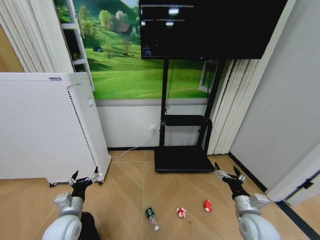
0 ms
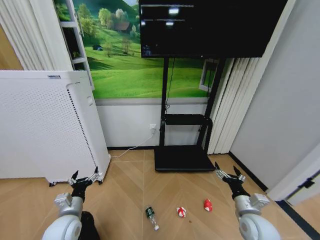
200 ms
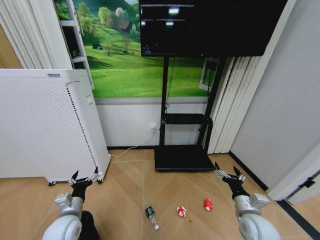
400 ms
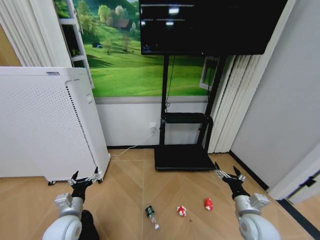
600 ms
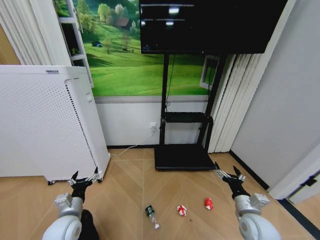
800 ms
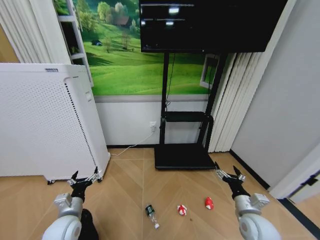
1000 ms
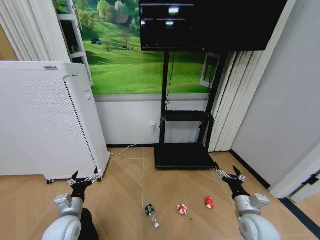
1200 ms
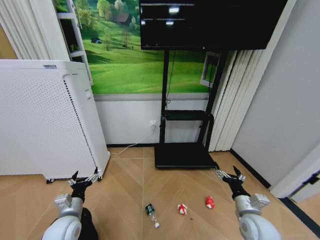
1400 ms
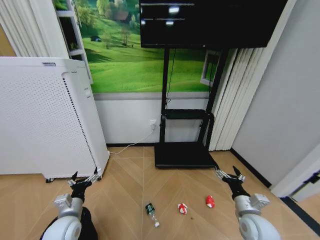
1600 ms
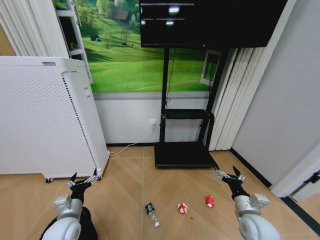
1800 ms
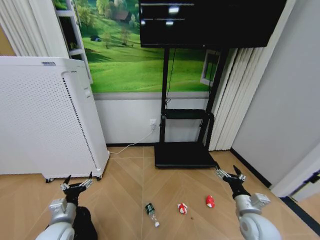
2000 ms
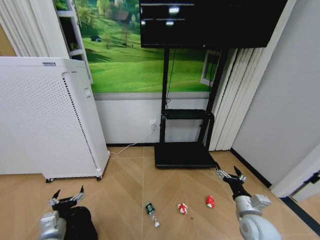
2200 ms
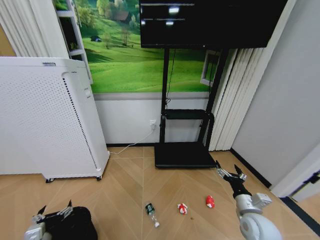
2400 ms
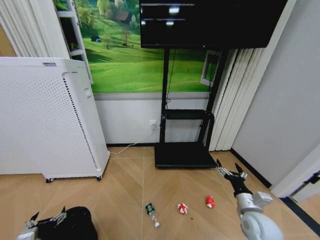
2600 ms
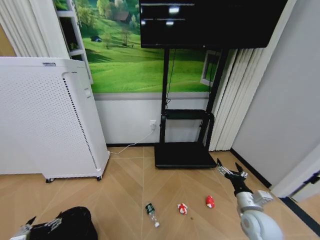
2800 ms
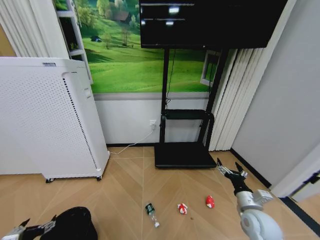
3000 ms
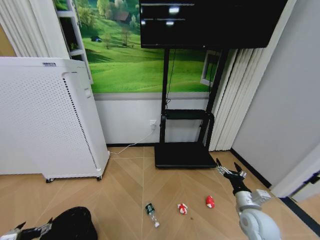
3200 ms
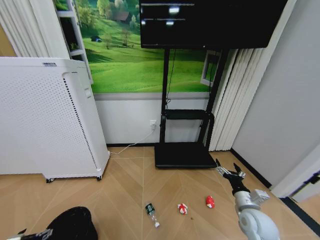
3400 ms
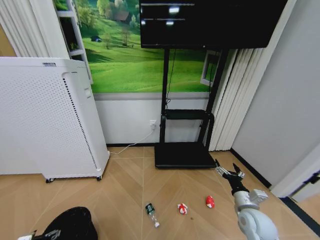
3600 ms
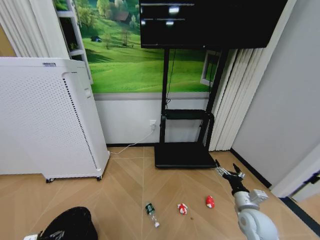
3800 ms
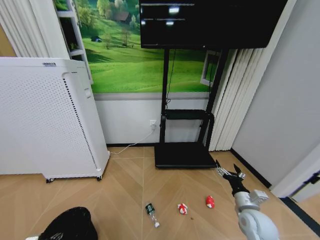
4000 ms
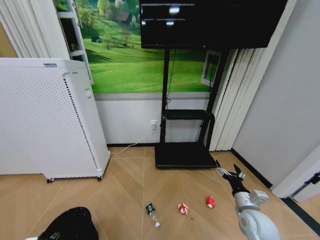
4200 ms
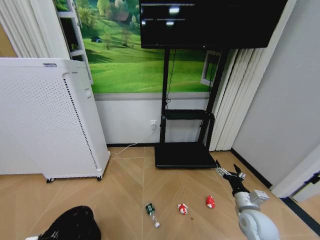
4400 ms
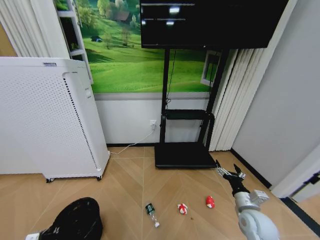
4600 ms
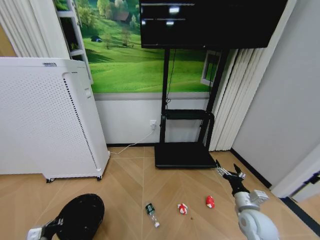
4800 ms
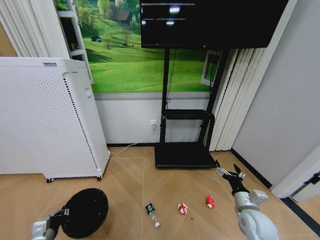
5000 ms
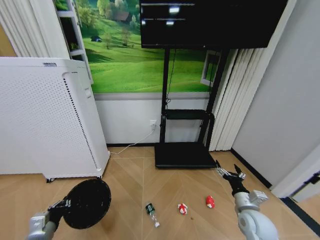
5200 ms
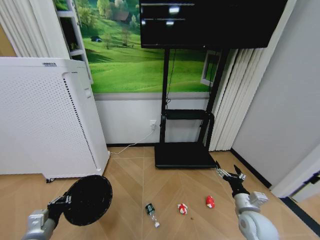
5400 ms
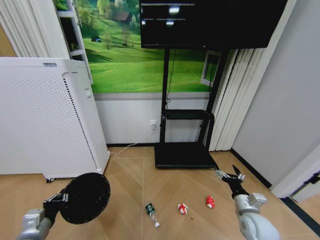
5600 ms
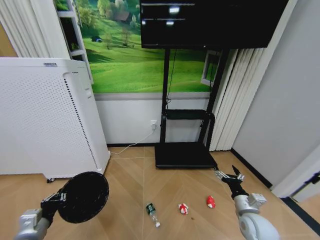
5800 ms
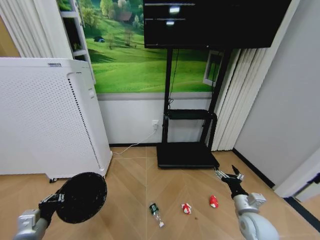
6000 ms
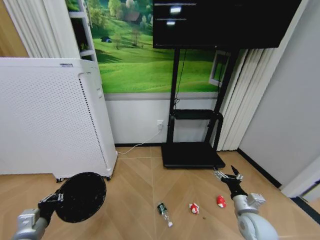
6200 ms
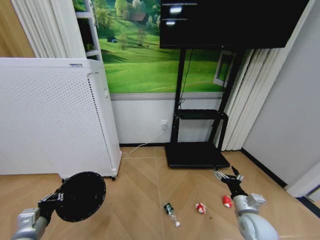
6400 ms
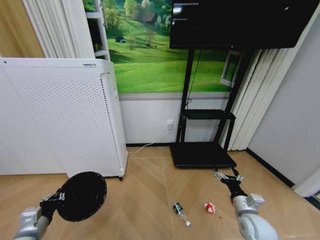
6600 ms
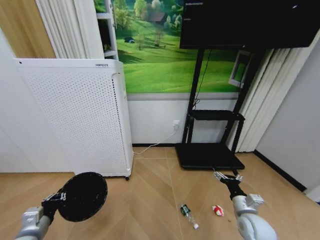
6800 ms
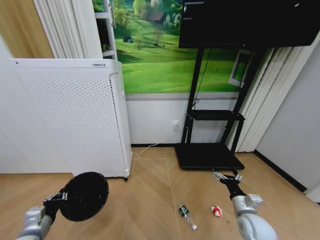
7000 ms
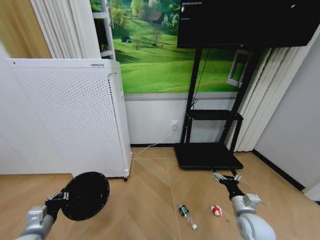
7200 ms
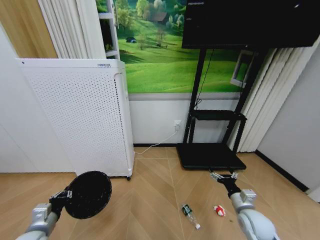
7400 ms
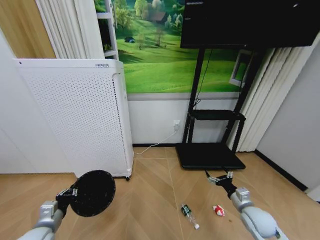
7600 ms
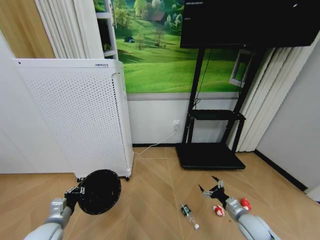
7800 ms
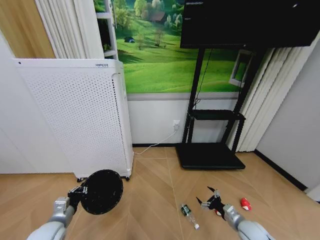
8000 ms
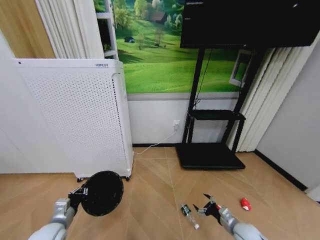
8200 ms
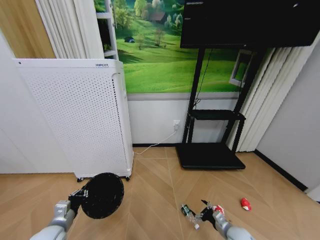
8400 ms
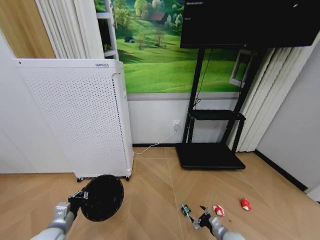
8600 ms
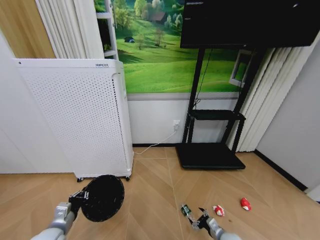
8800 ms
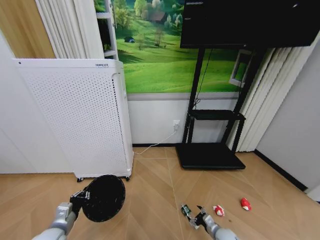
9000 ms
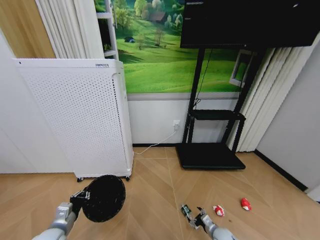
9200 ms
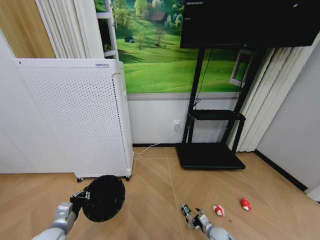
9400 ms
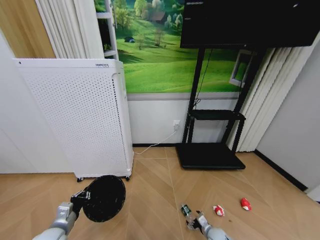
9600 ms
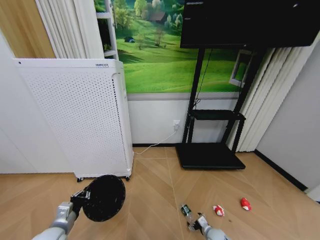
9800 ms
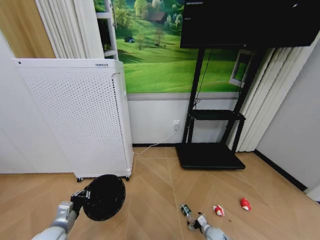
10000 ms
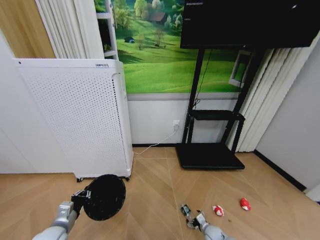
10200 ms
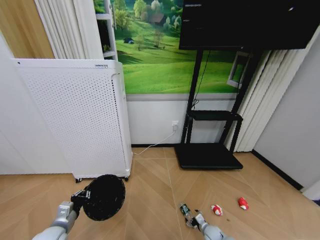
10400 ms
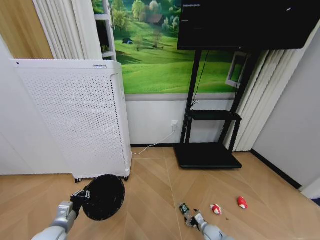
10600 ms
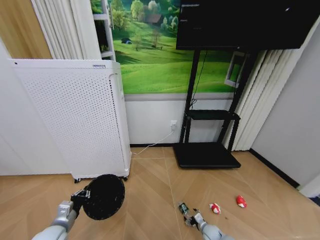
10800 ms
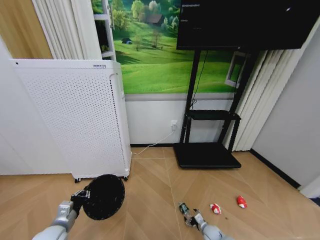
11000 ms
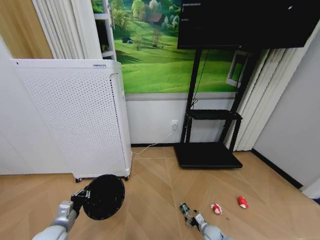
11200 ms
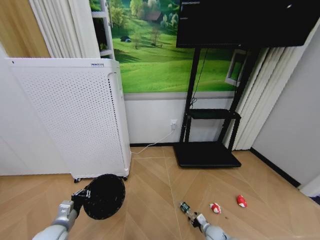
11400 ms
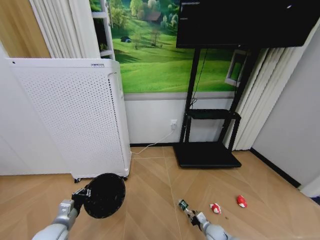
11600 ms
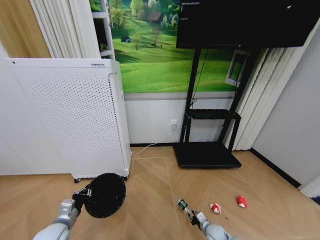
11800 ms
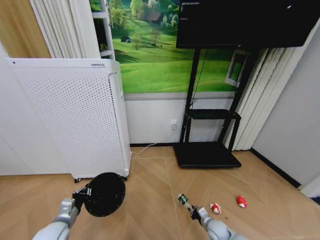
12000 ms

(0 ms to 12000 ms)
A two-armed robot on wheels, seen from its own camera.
Task of the whole recording: Pick up the trash bin and place the garbage on the floor into it.
0 ms - 1600 ms: Both grippers stay about where they are.
1600 ms - 3000 ms: The left gripper travels to the left and backward by roughly 20 cm.
3000 ms - 4400 ms: The left gripper travels downward by roughly 10 cm, and closes up.
4400 ms - 6000 ms: The left gripper is displaced upward and to the right by roughly 15 cm.
7600 ms - 9000 ms: The right gripper goes about 20 cm downward.
9000 ms - 10400 ms: The right gripper heads downward, covering some 5 cm.
10400 ms - 12000 ms: The right gripper shifts approximately 10 cm upward, and closes.

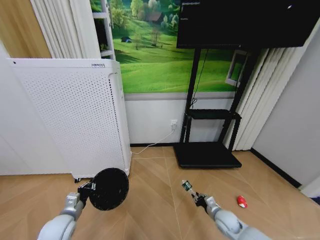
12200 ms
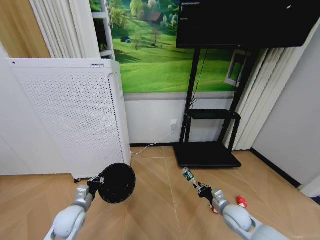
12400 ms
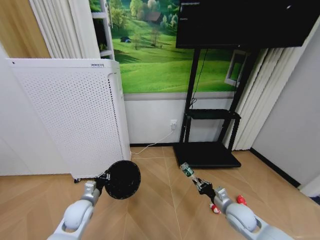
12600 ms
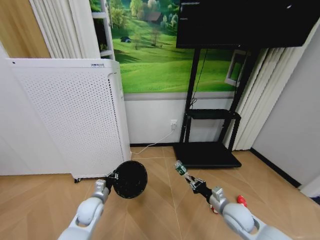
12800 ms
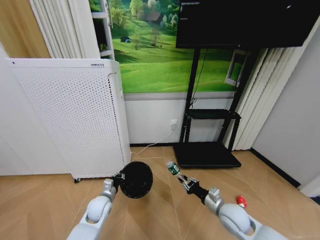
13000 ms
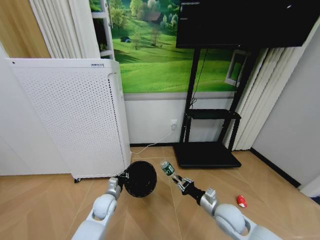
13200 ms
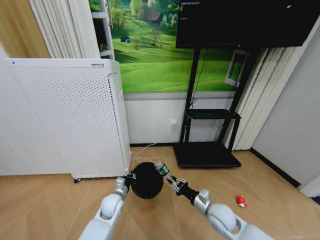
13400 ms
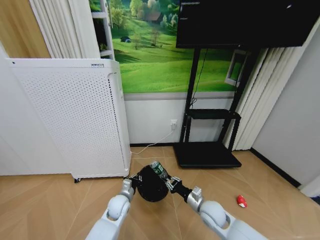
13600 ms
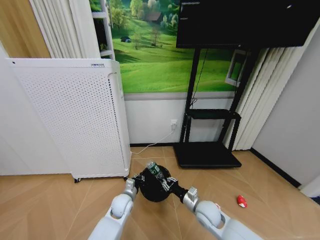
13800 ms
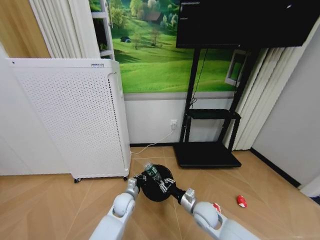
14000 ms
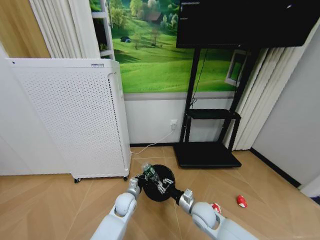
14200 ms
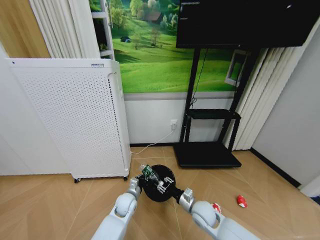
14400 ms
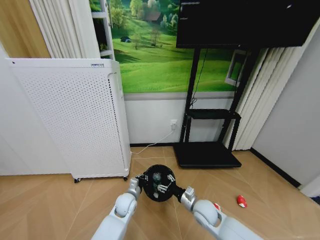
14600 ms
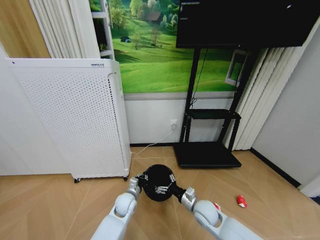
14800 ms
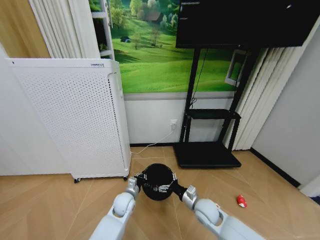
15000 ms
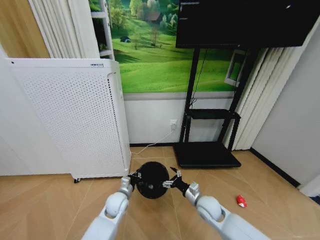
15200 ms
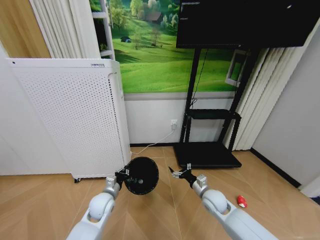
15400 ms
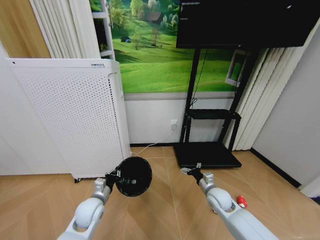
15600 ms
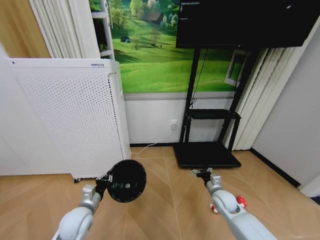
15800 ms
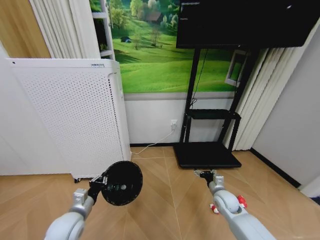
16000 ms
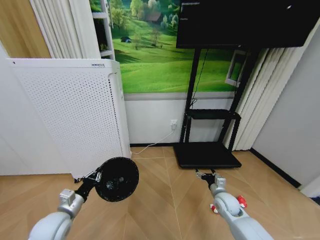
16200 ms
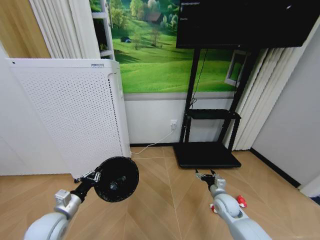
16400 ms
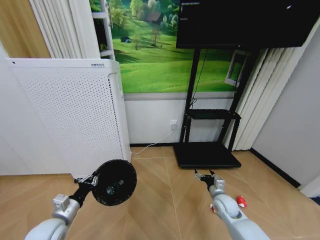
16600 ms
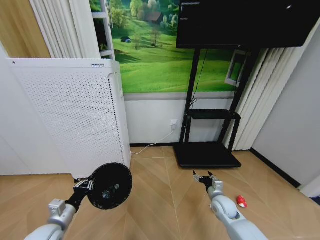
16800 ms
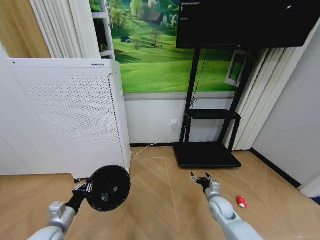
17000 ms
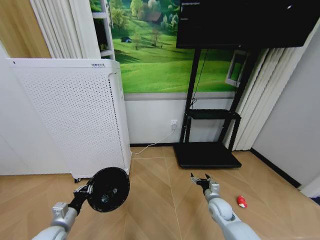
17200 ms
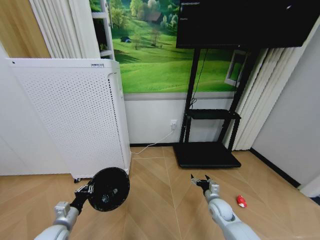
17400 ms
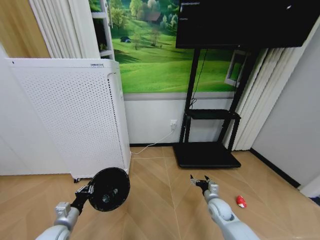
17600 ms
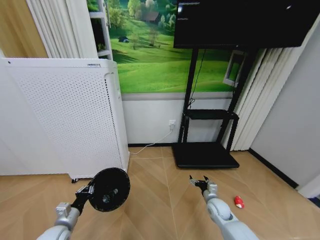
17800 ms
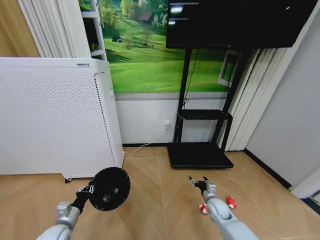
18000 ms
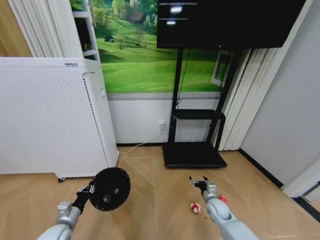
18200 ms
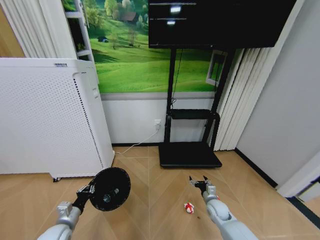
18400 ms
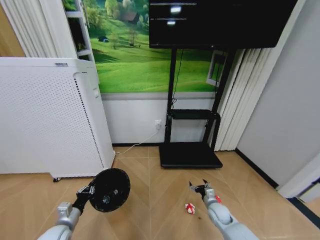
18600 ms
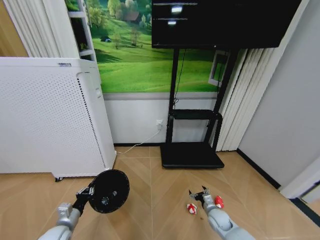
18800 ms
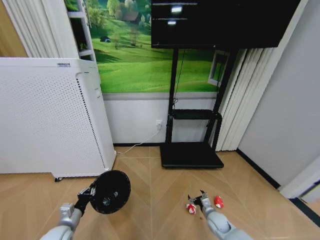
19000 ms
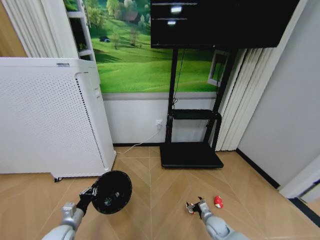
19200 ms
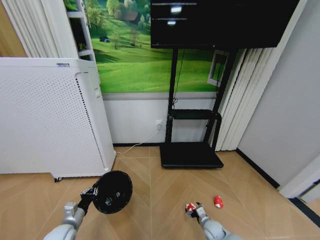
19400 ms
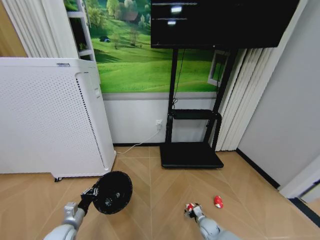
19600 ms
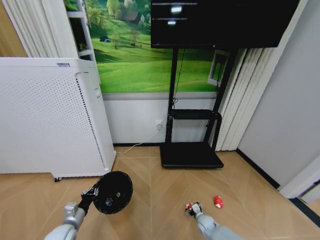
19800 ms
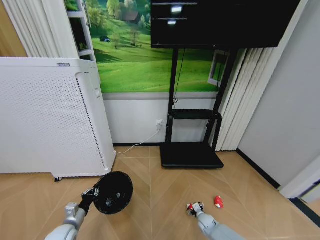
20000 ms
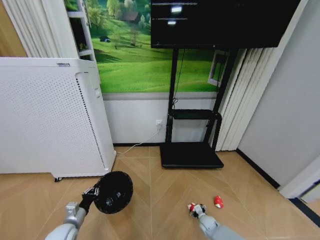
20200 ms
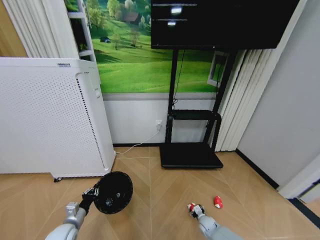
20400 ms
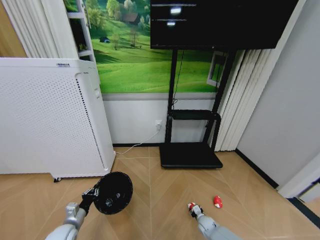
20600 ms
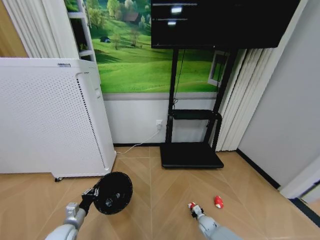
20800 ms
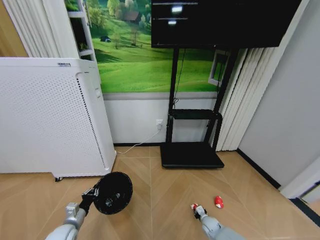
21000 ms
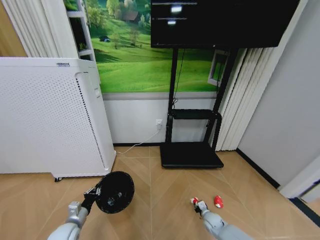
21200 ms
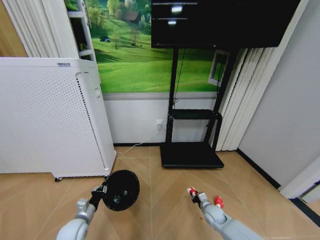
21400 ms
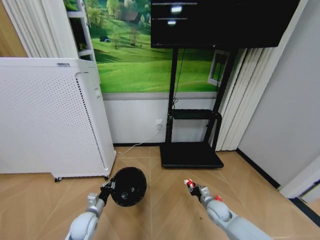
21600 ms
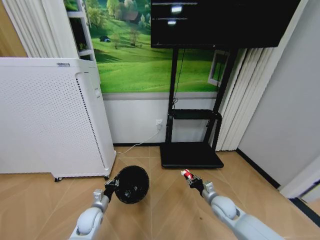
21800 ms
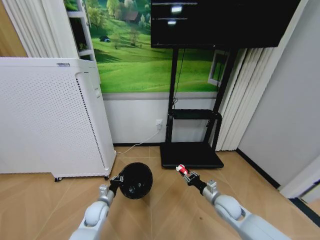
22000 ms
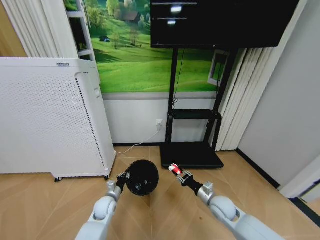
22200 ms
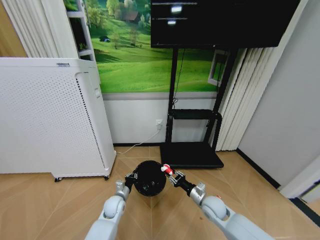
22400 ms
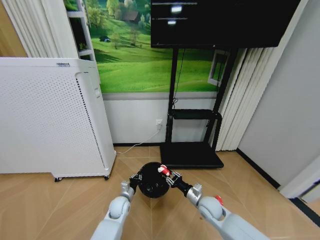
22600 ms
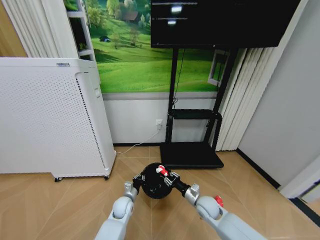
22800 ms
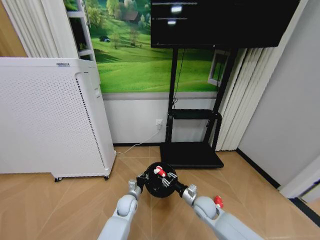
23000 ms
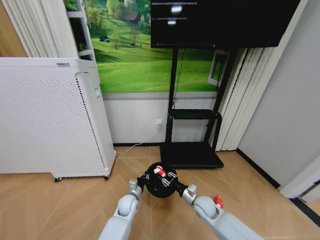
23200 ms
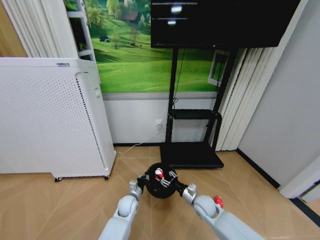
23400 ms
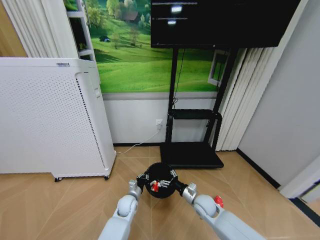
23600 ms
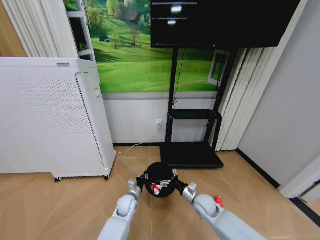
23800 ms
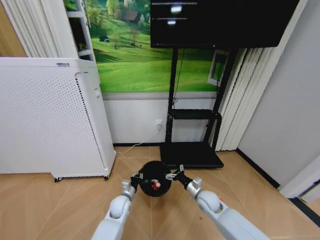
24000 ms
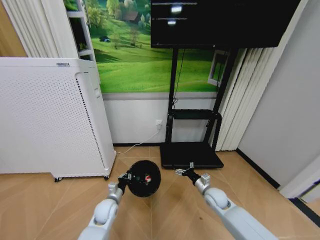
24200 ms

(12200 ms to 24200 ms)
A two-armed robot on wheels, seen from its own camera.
Task of the whole recording: Pick up the trash bin and place the garbage on the floor into it.
12200 ms - 13800 ms: The left gripper goes approximately 20 cm to the right and forward; the right gripper heads to the left and upward, covering roughly 15 cm.
13800 ms - 15200 ms: The right gripper opens up.
15200 ms - 16600 ms: The right gripper is displaced to the right by roughly 10 cm; the left gripper moves to the left, backward and upward, roughly 25 cm.
16600 ms - 18200 ms: Both grippers move downward, some 5 cm.
18200 ms - 19800 ms: The right gripper moves downward, approximately 15 cm.
19800 ms - 21200 ms: The right gripper closes its fingers.
21200 ms - 22600 ms: The right gripper travels upward by approximately 20 cm; the left gripper is displaced to the right and forward by some 20 cm.
22600 ms - 24200 ms: The right gripper shifts by approximately 5 cm, and opens up. The left gripper heads to the left, covering roughly 5 cm.
